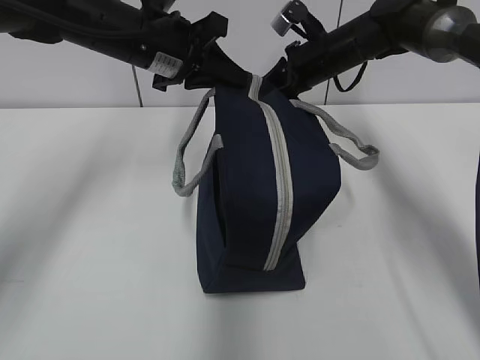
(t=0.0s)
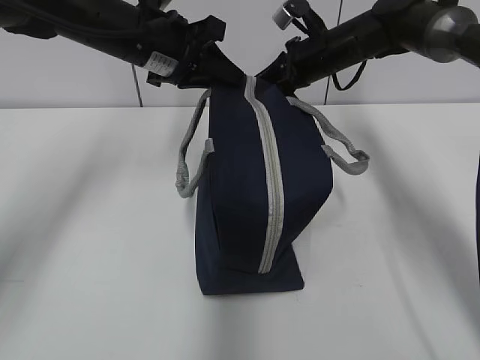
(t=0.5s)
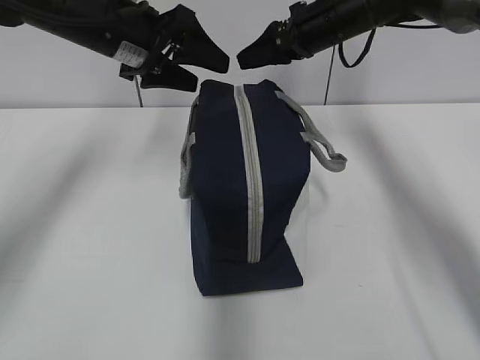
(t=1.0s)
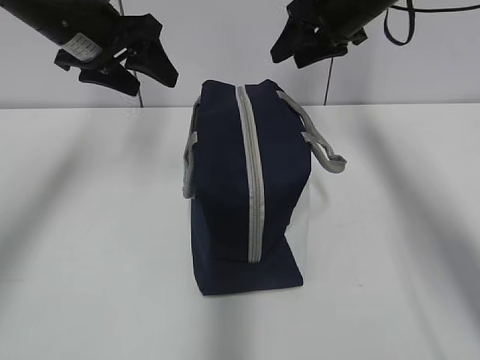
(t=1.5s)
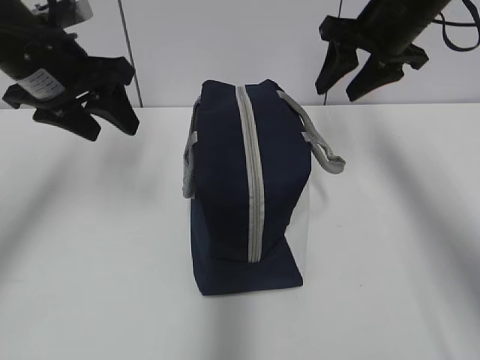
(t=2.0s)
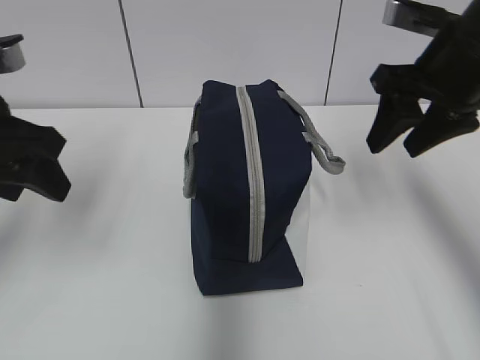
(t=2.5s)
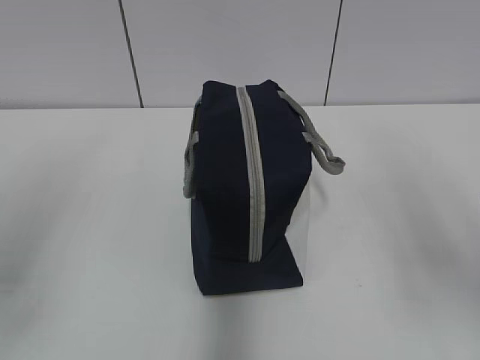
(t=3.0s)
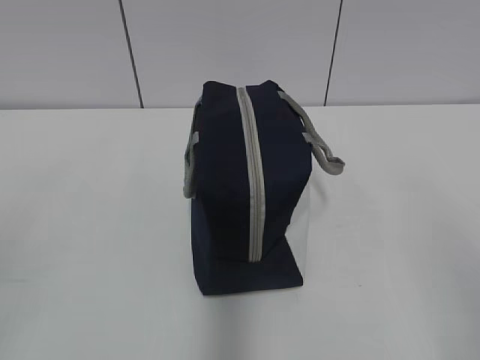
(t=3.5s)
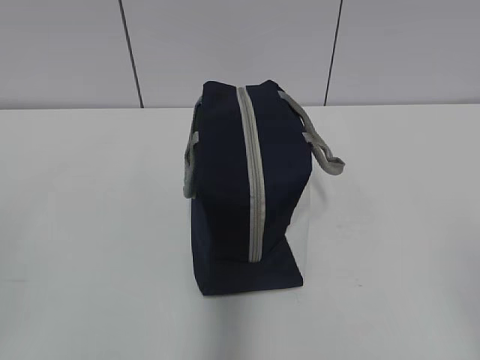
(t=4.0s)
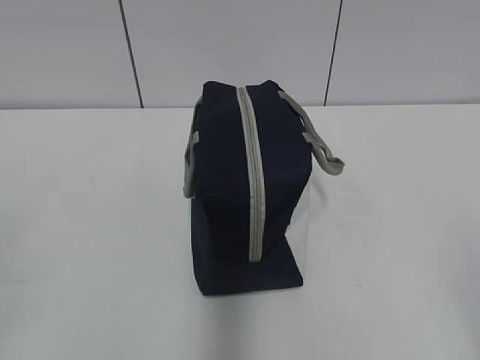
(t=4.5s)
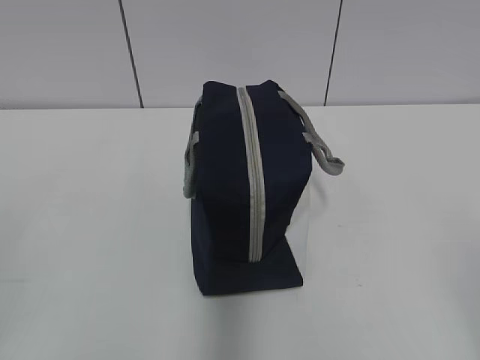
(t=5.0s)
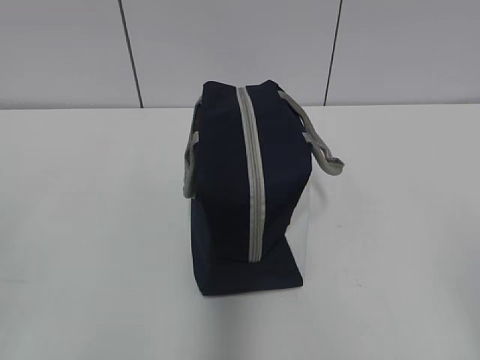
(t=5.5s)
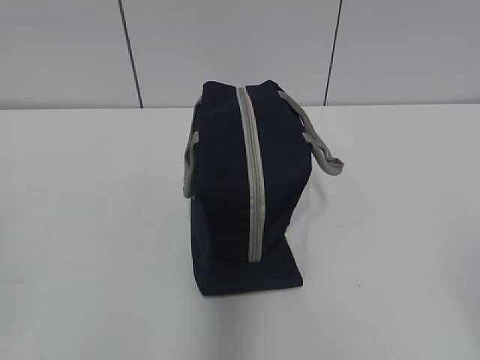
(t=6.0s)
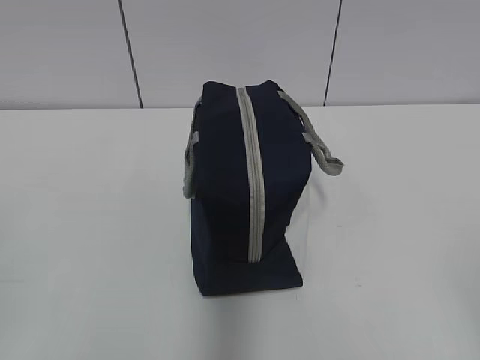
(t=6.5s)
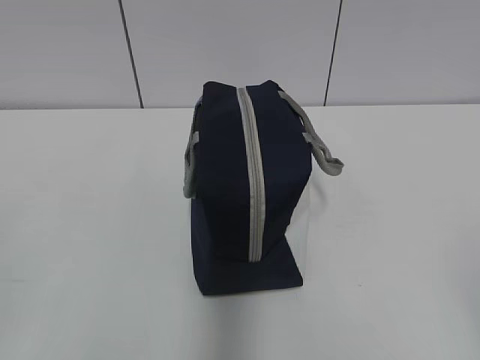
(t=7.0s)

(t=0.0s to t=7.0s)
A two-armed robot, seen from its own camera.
t=0.0s - t=2.0s: The right gripper travels upward and backward by some 15 cm, and opens its fingers; the left gripper shifts some 10 cm to the left and backward, and opens its fingers.
t=2.0s - t=3.5s: The grippers both shift backward by about 35 cm.
